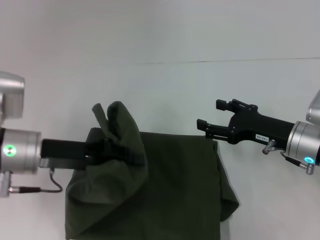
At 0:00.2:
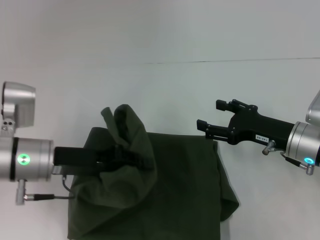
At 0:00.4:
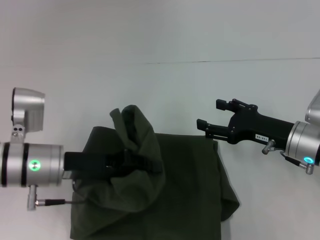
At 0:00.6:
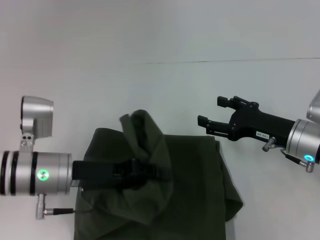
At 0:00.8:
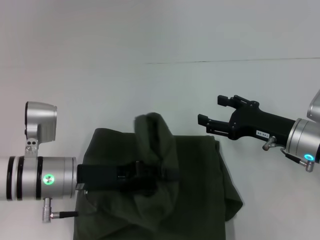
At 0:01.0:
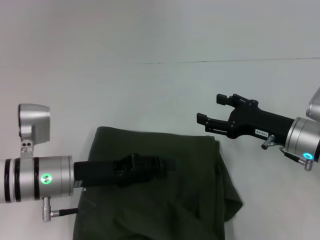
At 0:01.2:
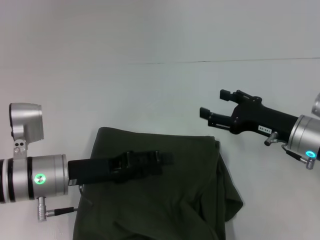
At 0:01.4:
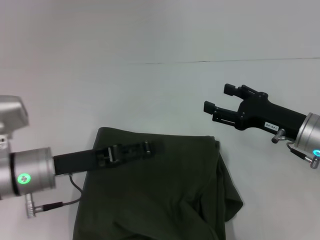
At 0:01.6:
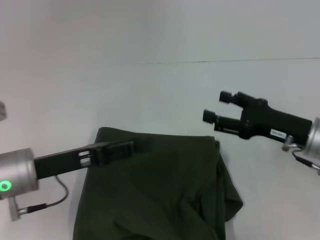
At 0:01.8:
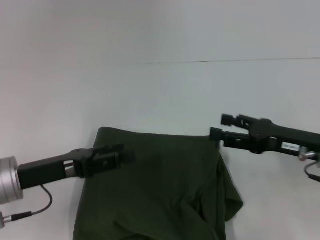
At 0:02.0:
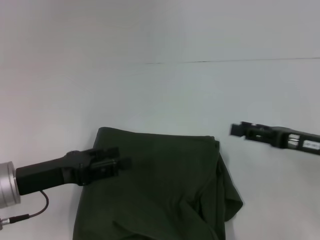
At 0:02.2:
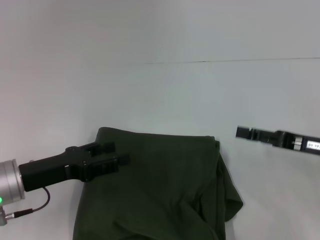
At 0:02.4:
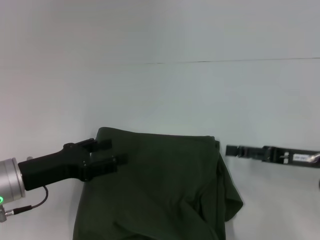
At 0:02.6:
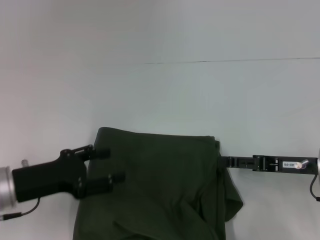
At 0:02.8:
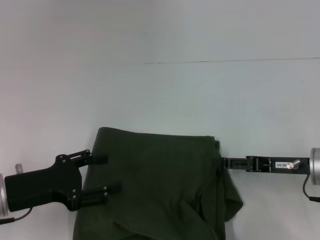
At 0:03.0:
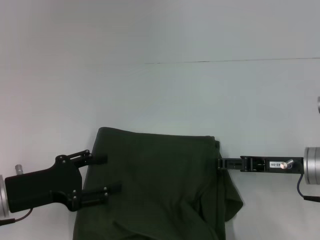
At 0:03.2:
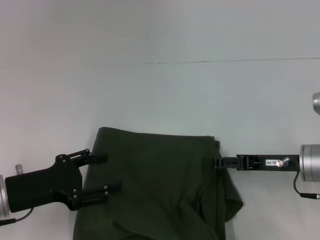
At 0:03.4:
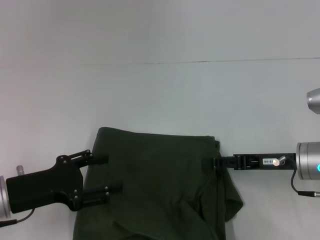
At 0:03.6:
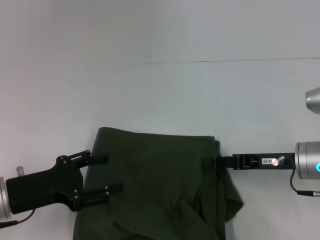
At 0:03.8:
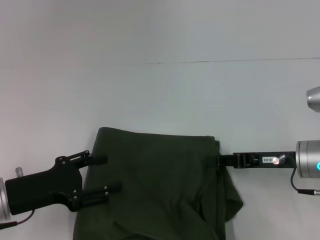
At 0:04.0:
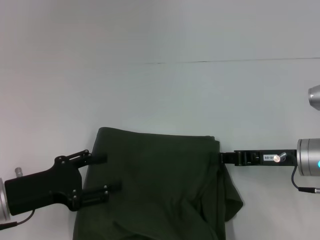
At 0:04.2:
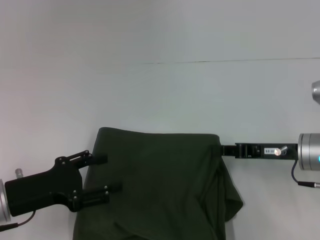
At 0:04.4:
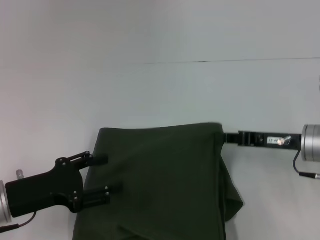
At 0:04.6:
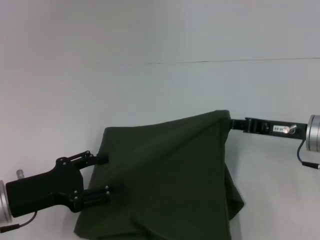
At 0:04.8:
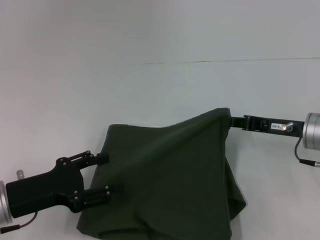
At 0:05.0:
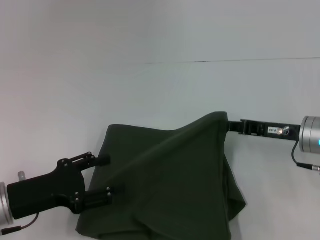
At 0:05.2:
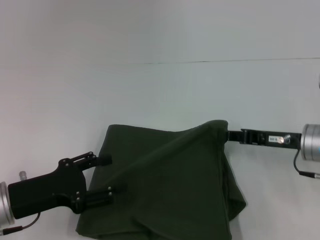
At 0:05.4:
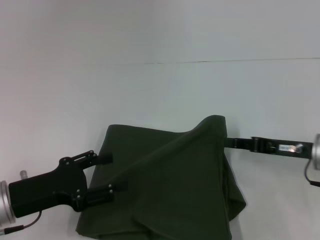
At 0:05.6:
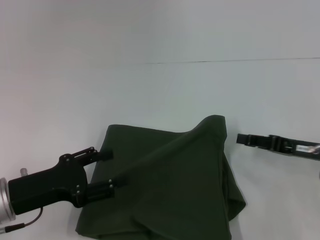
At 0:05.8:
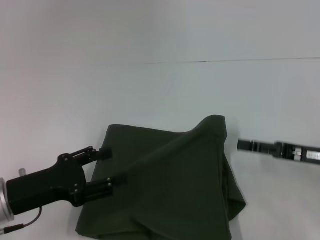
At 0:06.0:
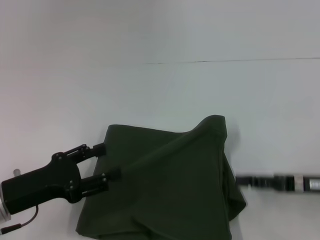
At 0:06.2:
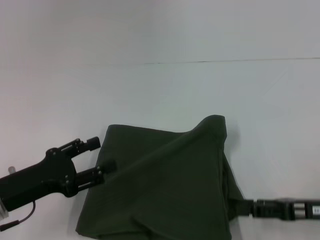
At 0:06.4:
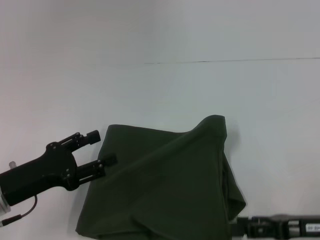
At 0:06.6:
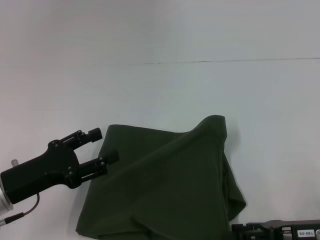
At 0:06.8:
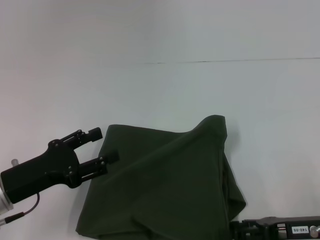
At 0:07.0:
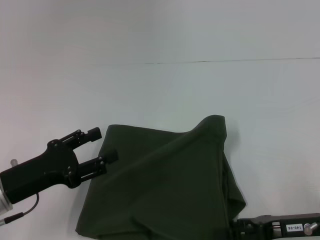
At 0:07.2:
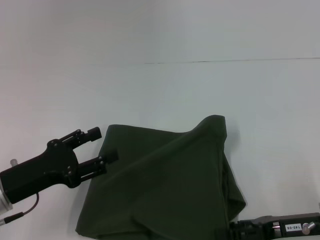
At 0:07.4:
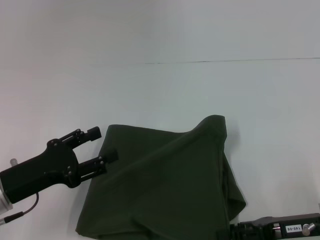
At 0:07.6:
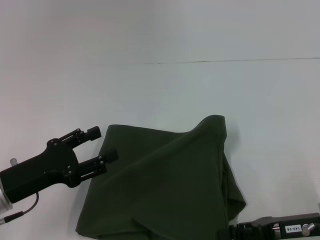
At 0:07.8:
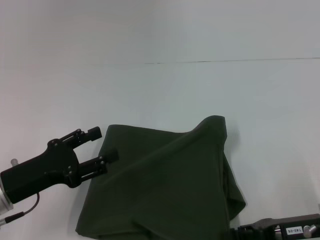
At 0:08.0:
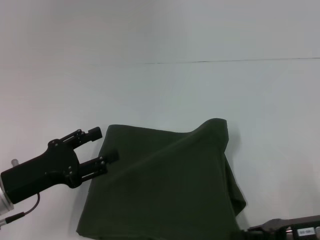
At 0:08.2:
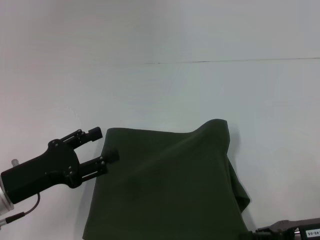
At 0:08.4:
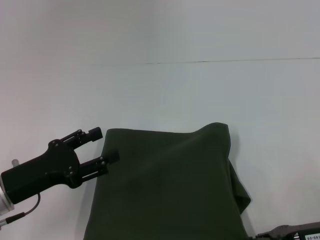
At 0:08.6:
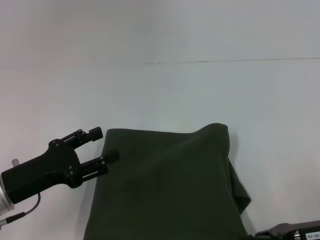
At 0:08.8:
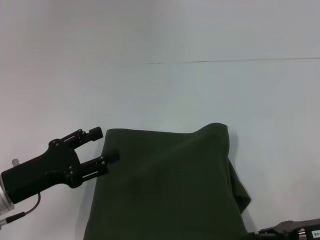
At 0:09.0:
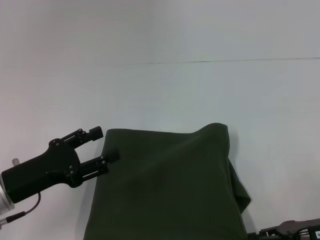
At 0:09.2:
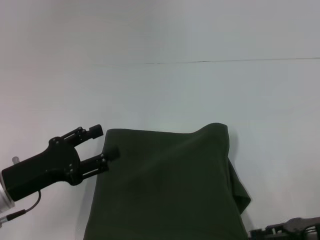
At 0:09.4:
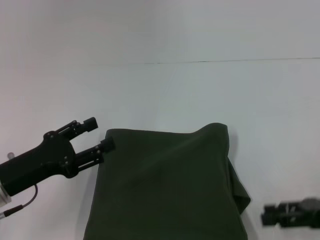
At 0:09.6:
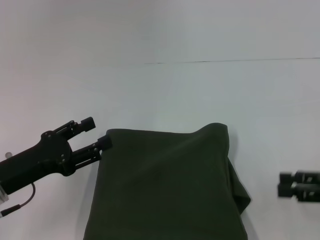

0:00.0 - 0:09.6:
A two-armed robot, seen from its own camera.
Step, 0:00.0 - 0:02.6: Fold the clothes with your left hand.
0:00.0 - 0:01.6: The left gripper opens.
0:01.6 - 0:03.2: The left gripper shifts by some 5 cm.
0:03.2 - 0:04.8: The right gripper closes.
0:04.8 - 0:06.4: The right gripper moves backward, some 10 cm, and opens its fingers.
0:06.4 - 0:08.0: The right gripper closes.
0:08.0 - 0:09.6: The right gripper moves to the right and upward, some 10 cm, and opens.

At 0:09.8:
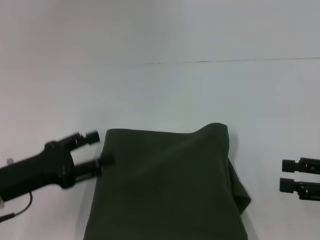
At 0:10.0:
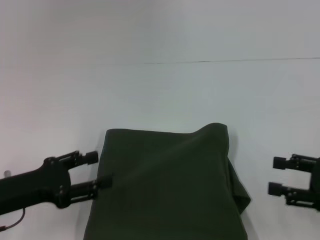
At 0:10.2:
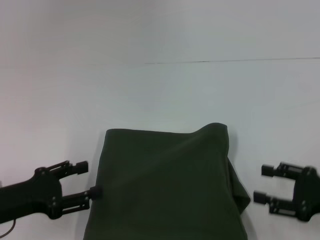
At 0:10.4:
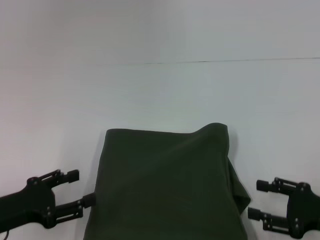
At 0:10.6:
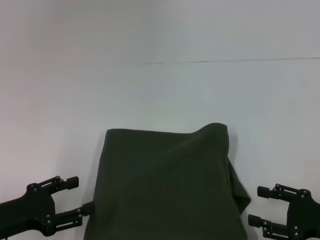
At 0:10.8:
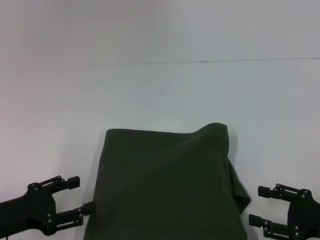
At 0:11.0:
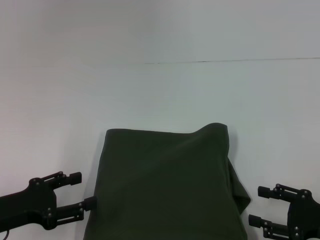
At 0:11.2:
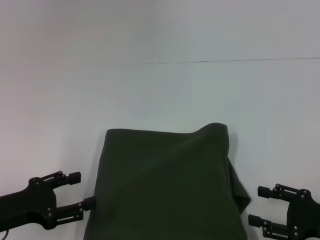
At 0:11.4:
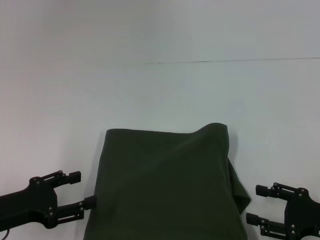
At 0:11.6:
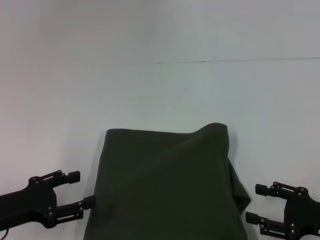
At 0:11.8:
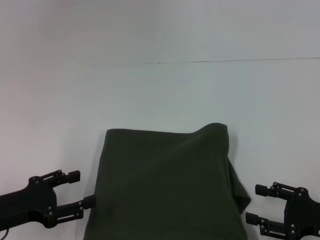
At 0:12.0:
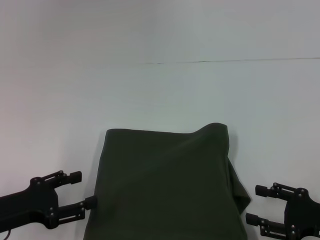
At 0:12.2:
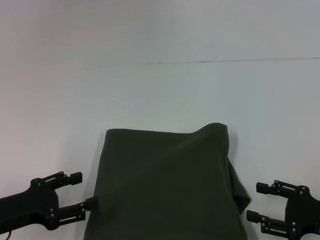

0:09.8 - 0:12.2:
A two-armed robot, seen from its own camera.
0:09.8 - 0:11.0: The right gripper heads downward, covering some 5 cm.
0:11.0 - 0:12.2: Both grippers stay put.

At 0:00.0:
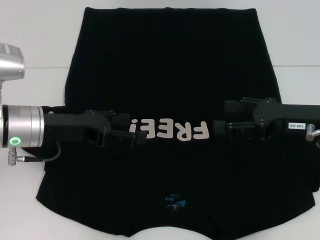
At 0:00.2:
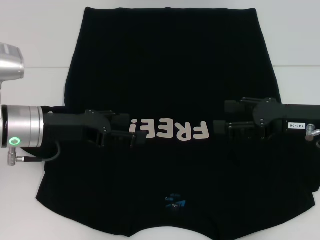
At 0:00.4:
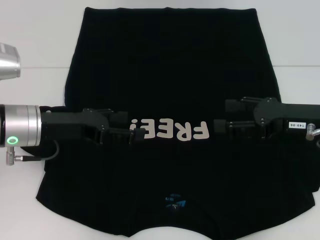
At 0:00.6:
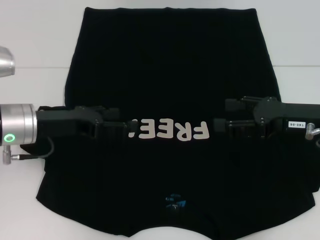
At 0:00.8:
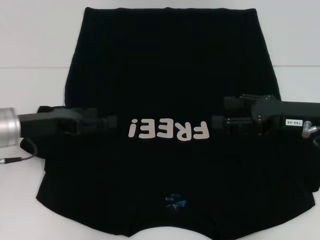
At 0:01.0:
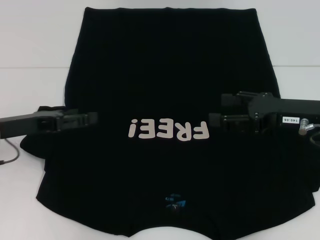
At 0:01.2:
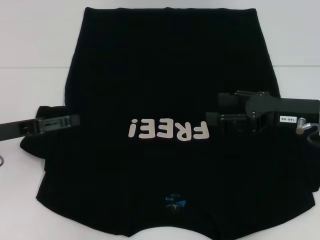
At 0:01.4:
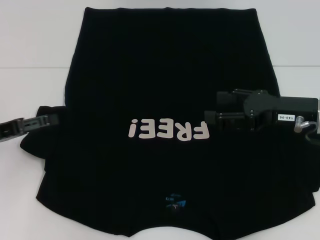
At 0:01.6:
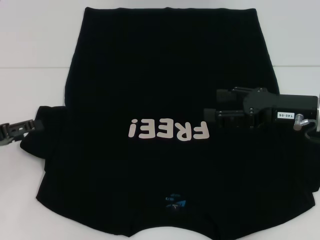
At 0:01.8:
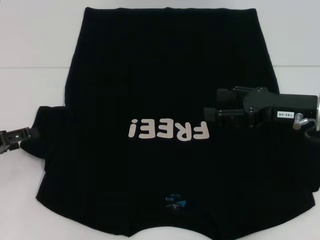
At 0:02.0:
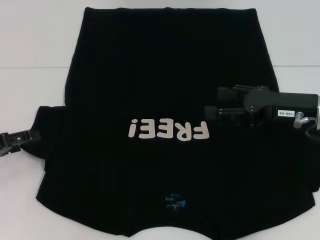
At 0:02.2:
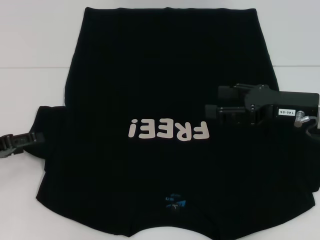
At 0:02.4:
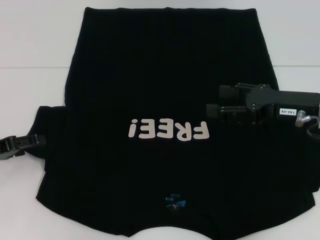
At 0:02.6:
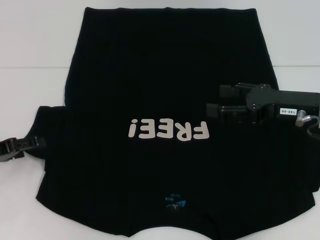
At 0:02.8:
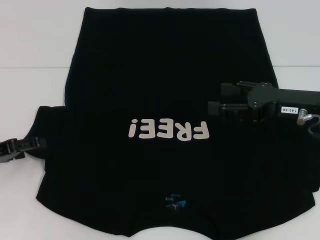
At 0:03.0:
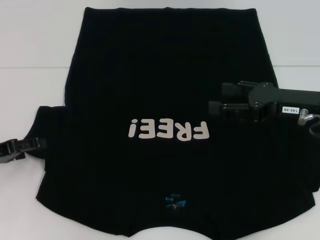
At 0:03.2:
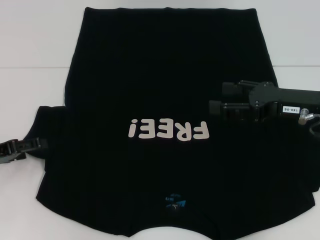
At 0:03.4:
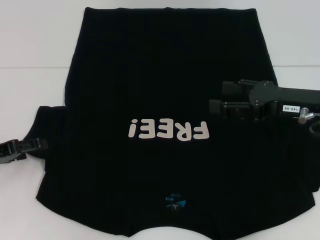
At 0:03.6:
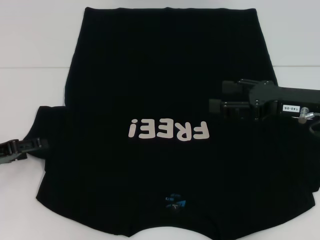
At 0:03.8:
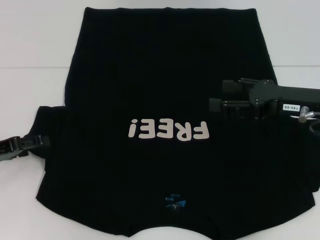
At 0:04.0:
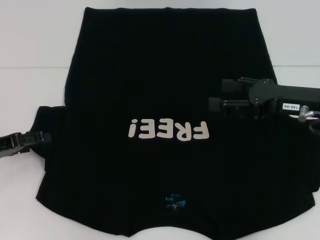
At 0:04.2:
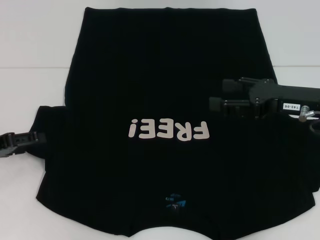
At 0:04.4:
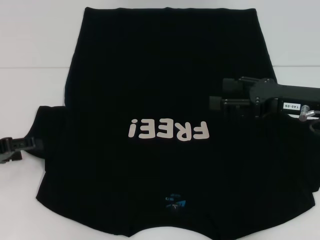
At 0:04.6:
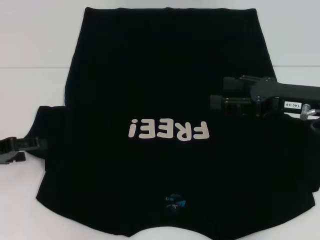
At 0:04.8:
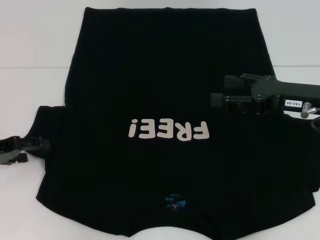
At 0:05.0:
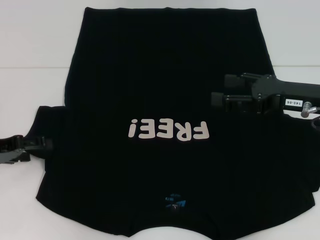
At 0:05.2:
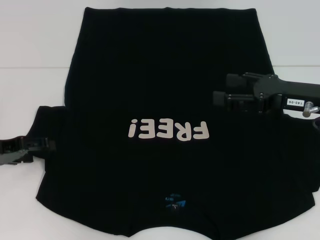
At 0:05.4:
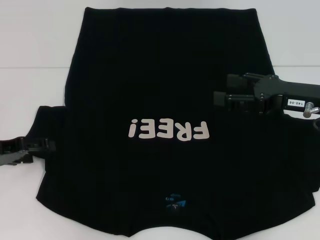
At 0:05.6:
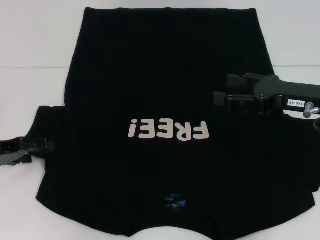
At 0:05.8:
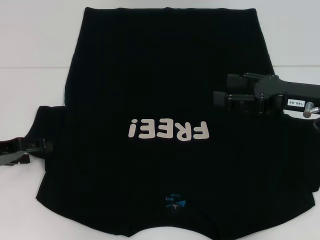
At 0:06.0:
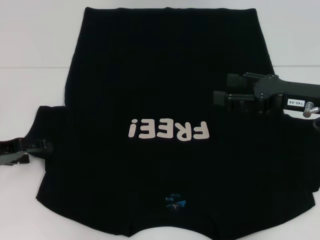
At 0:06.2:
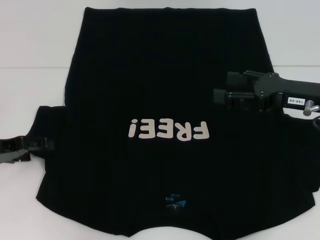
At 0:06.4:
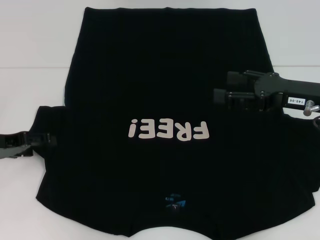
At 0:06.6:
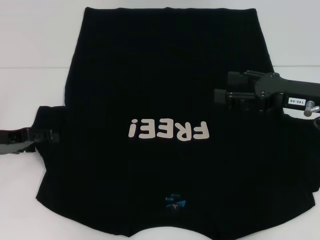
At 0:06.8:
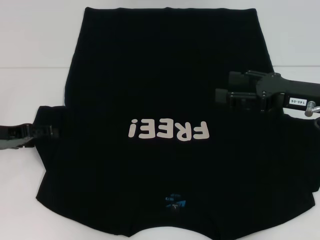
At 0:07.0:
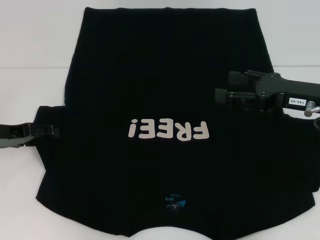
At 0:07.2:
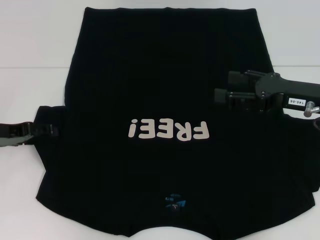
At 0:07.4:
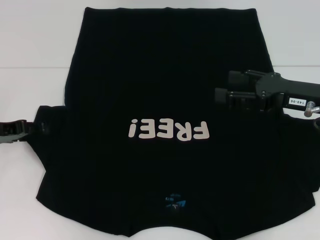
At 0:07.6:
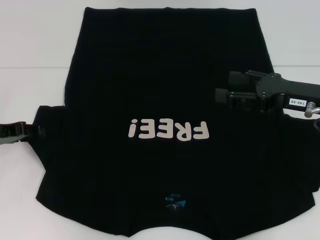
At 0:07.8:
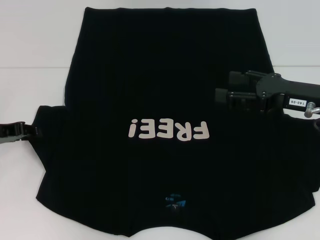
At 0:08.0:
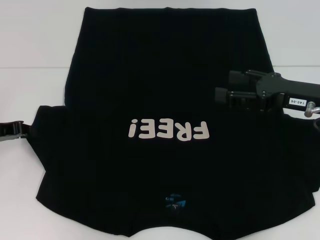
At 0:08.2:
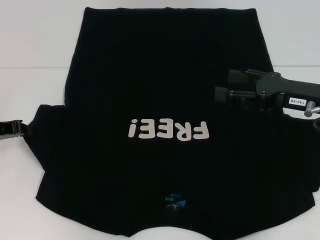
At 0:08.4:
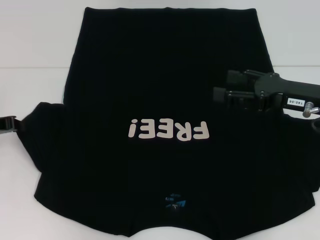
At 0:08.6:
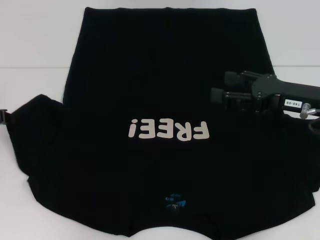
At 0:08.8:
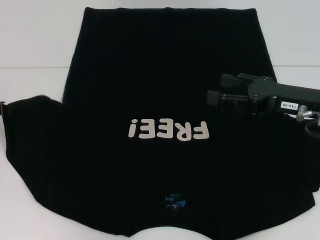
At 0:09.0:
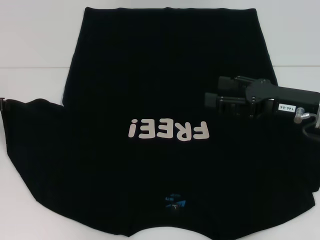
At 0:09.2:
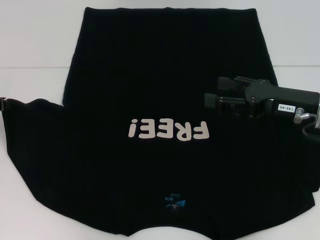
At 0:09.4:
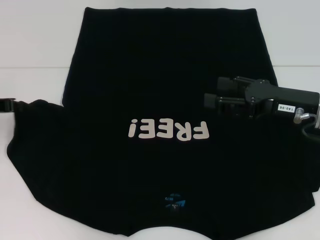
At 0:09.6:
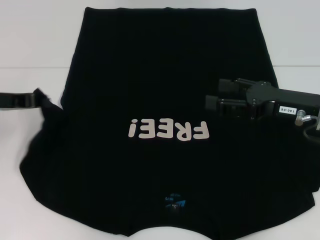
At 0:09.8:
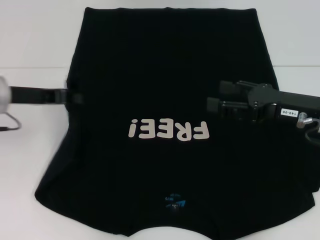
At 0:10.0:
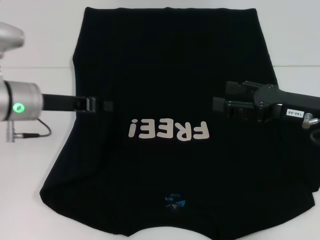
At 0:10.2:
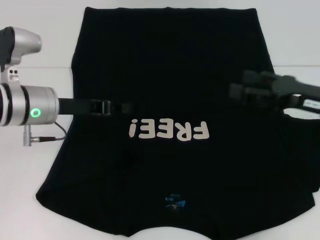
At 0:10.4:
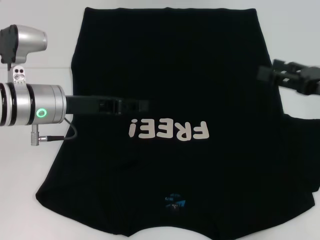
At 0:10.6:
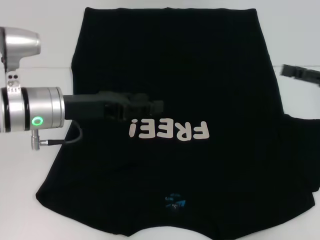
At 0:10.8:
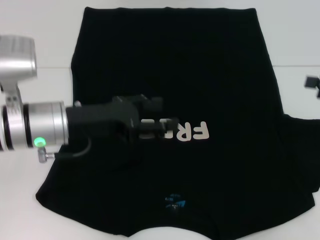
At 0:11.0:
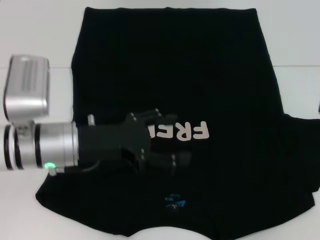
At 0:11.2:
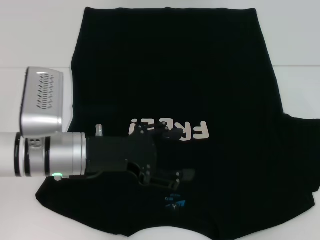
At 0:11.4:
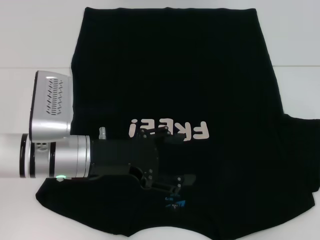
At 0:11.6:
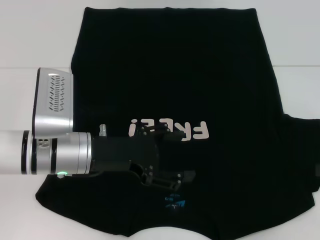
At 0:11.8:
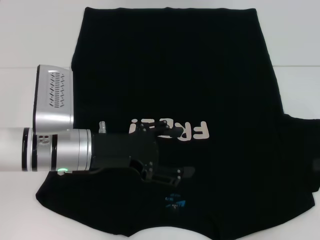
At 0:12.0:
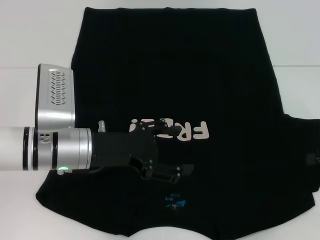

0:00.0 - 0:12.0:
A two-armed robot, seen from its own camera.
Step, 0:00.0 - 0:10.4: Fold the bottom left sleeve with your left hand.
0:00.0 - 0:01.6: The left gripper moves to the left, roughly 15 cm.
0:01.6 - 0:07.6: The grippers make only small movements.
0:07.6 - 0:09.0: The left gripper closes up.
0:09.0 - 0:10.4: The left gripper is displaced to the right by approximately 15 cm, while the right gripper shifts some 5 cm to the right.
0:10.4 - 0:12.0: The right gripper goes roughly 5 cm to the right; the left gripper changes place by some 5 cm, and opens up.
